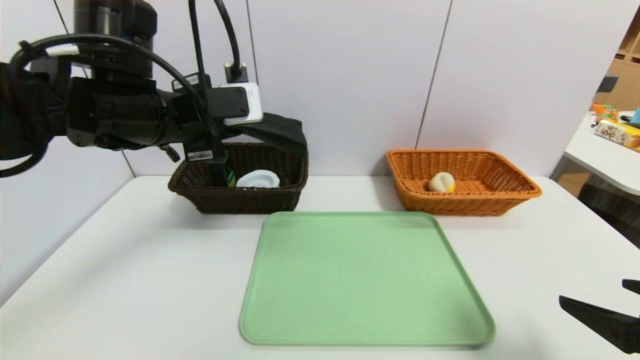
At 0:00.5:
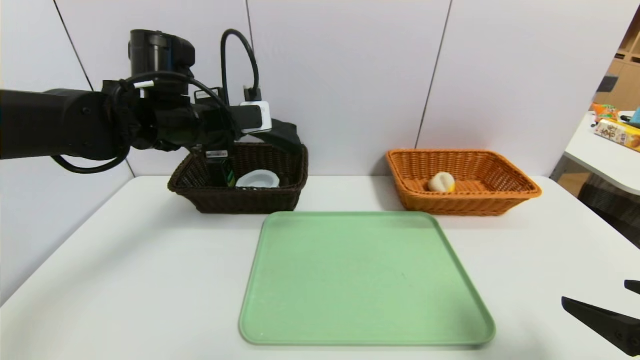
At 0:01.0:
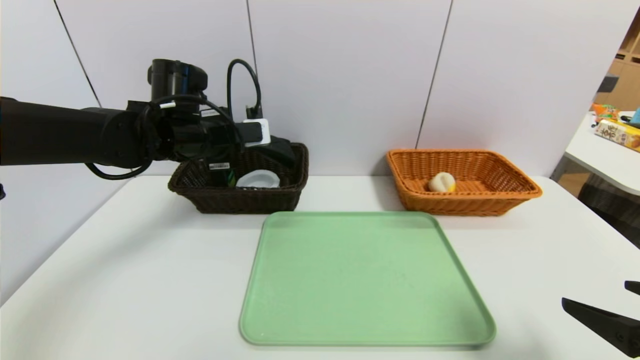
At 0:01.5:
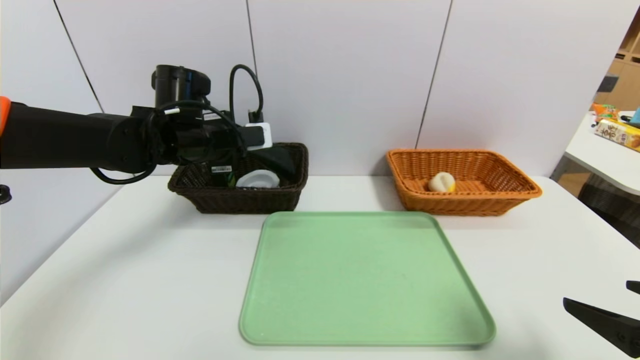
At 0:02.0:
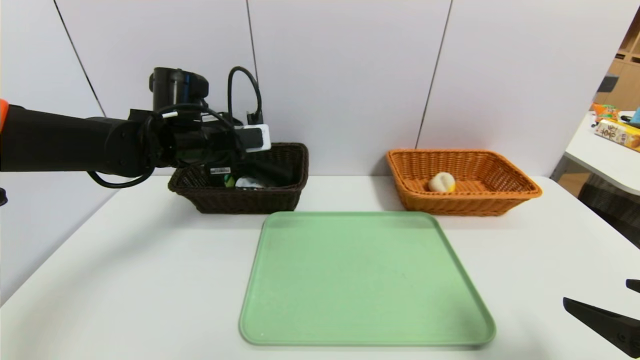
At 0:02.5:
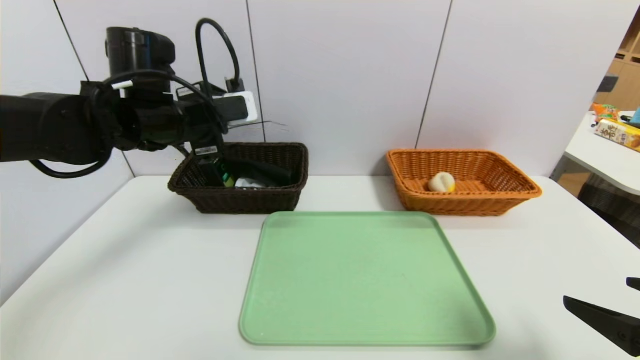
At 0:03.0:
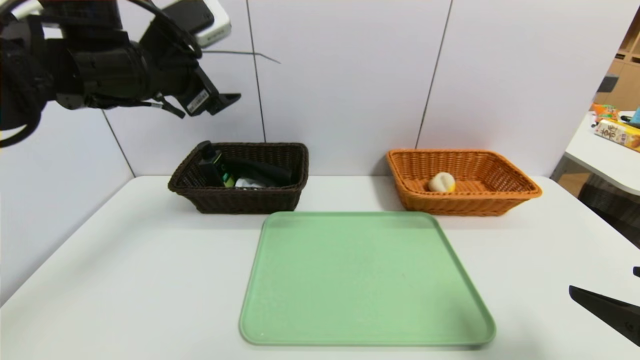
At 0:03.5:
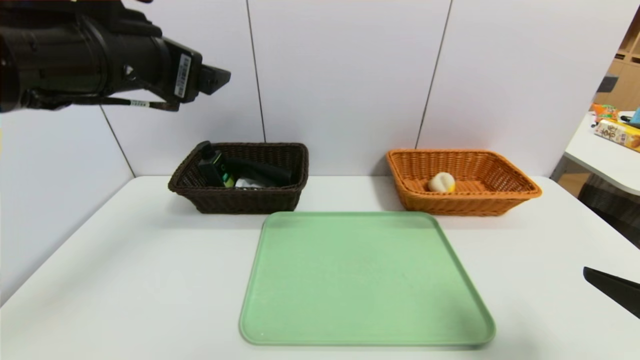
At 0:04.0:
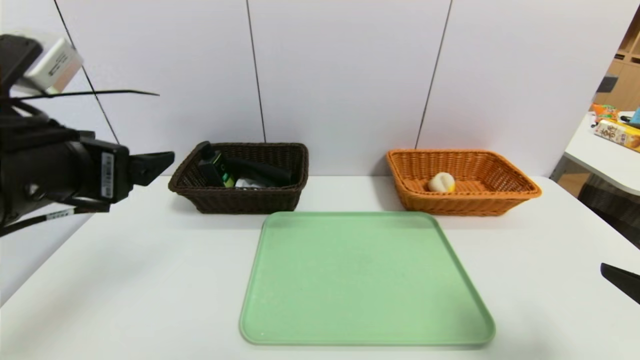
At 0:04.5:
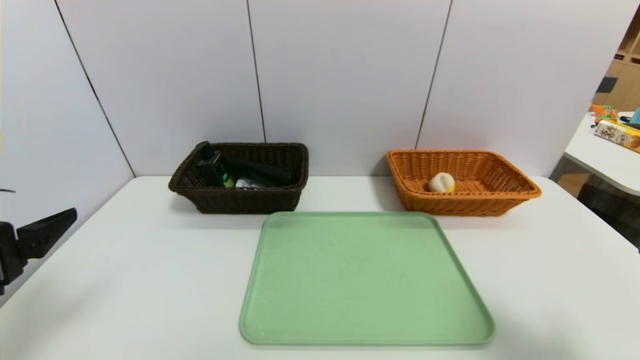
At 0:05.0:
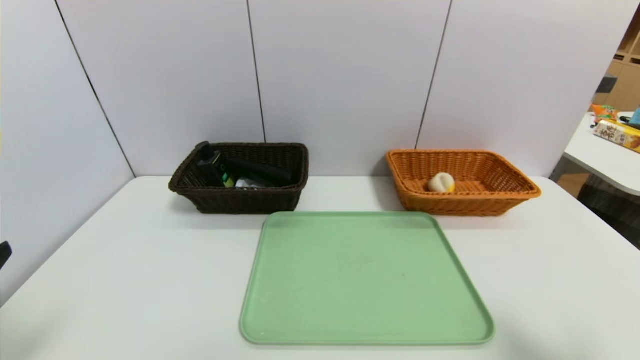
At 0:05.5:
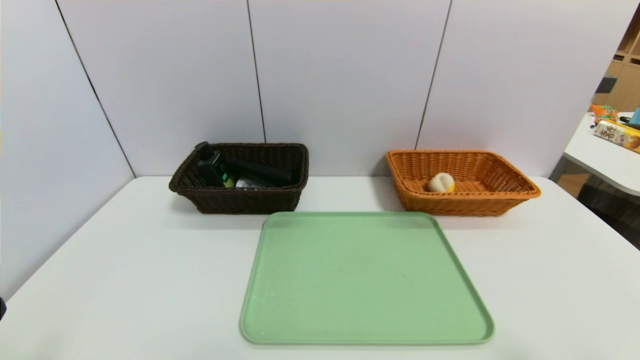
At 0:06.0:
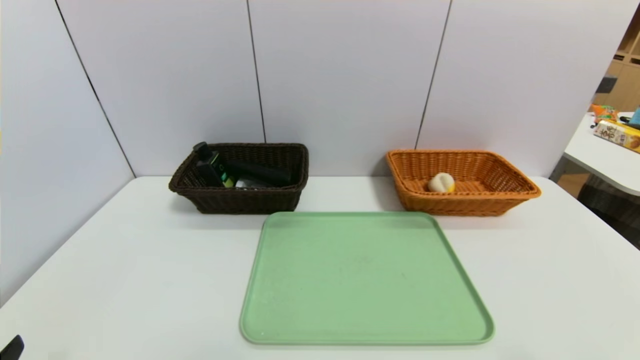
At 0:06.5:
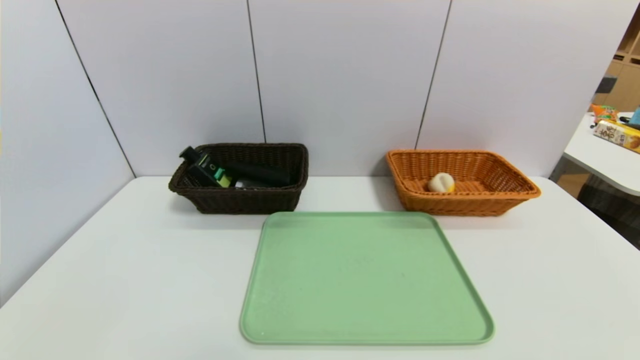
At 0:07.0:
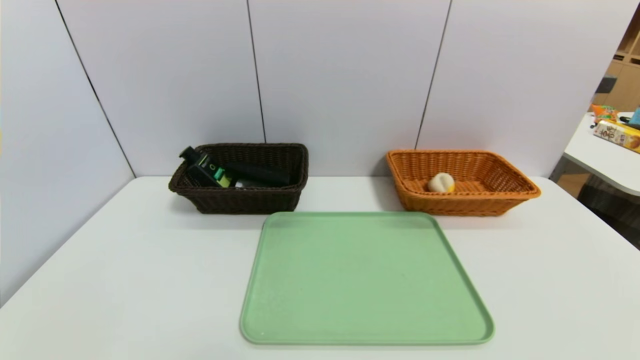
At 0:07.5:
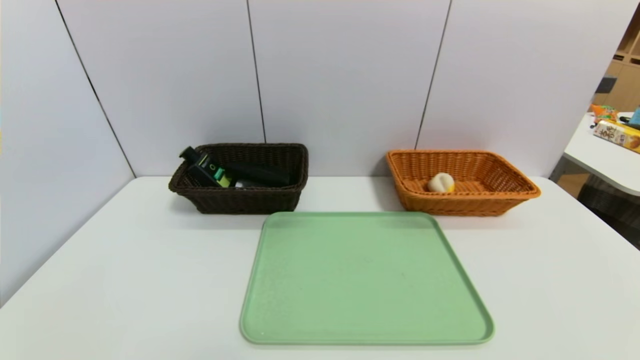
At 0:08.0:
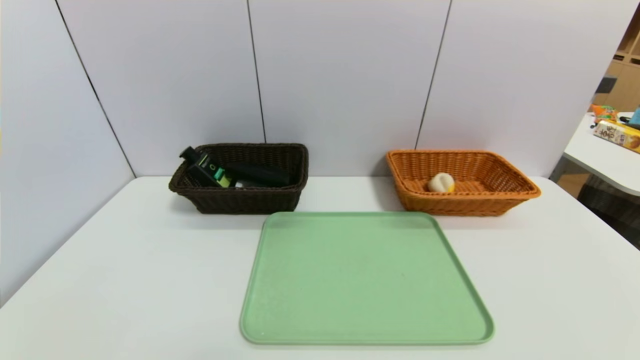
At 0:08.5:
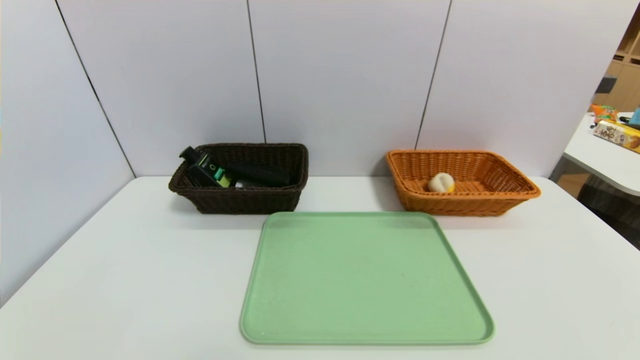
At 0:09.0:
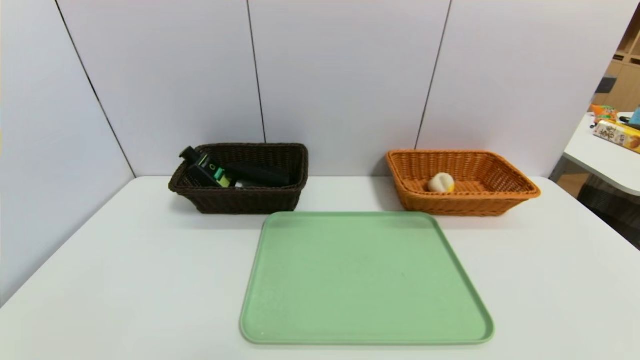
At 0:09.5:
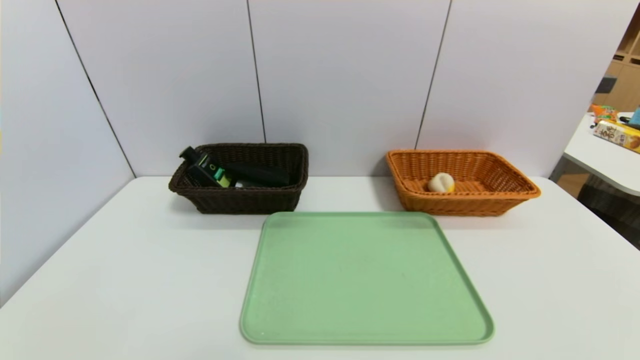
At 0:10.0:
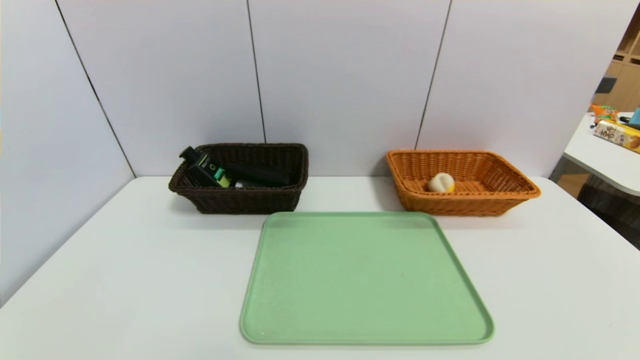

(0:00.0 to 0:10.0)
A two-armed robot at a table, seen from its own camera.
Task of the whole recording: place the food in the right basket with the right gripper, and place the non food items in the left basket with the left gripper.
Step, 0:00.0 - 0:02.0: Grasp the glasses case and put it in the left basket.
0:00.0 - 0:02.0: The left gripper is displaced forward and downward by about 10 cm, and opens up.
0:02.0 - 0:04.0: The left gripper travels backward by approximately 20 cm.
0:04.0 - 0:06.0: The right gripper shifts approximately 10 cm backward. The left gripper moves backward, downward and to the left, approximately 25 cm.

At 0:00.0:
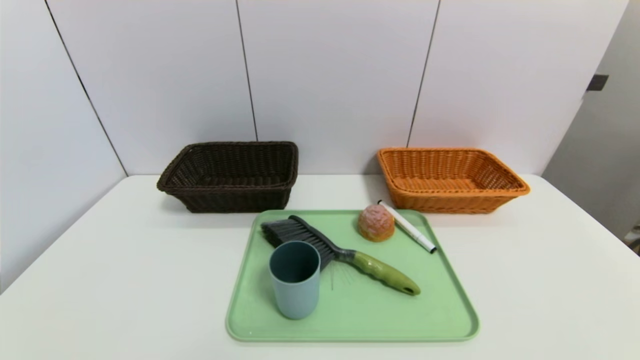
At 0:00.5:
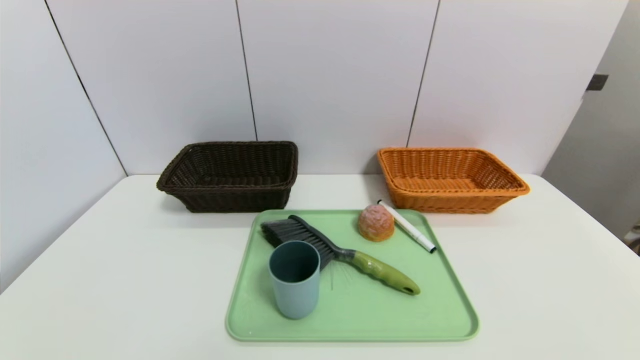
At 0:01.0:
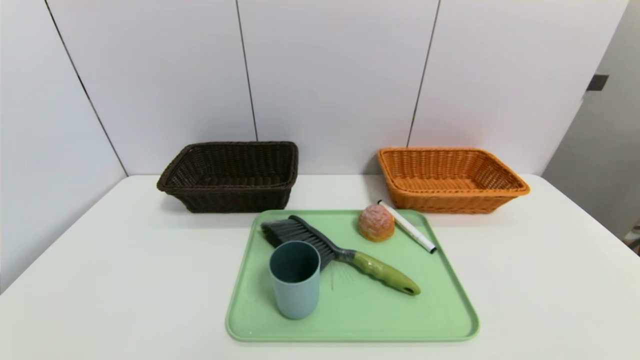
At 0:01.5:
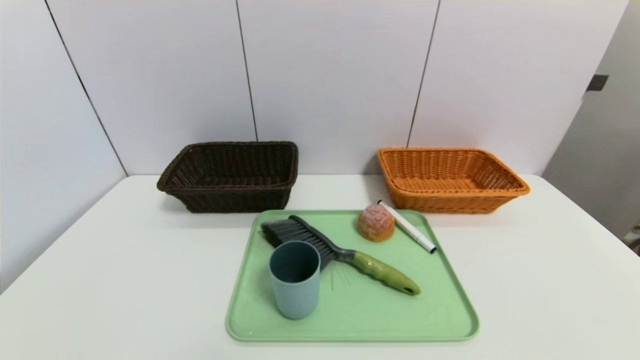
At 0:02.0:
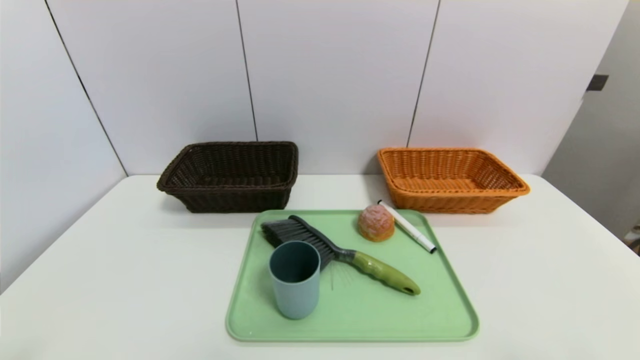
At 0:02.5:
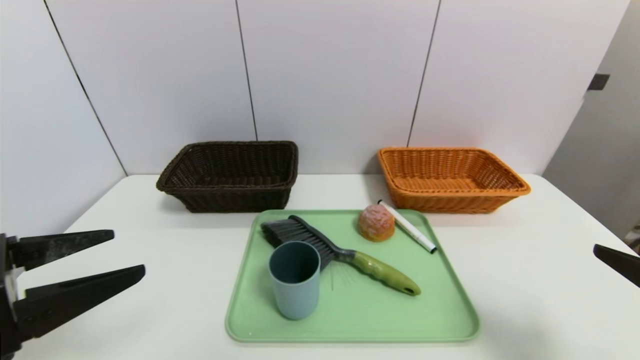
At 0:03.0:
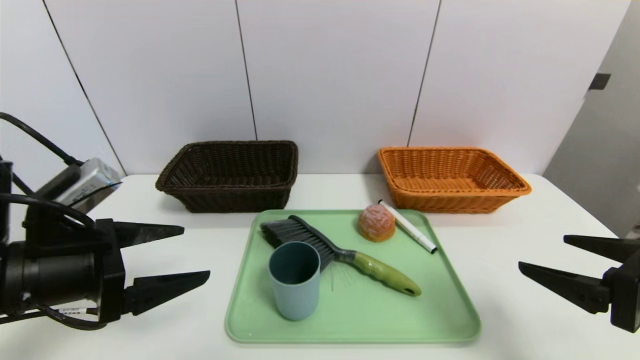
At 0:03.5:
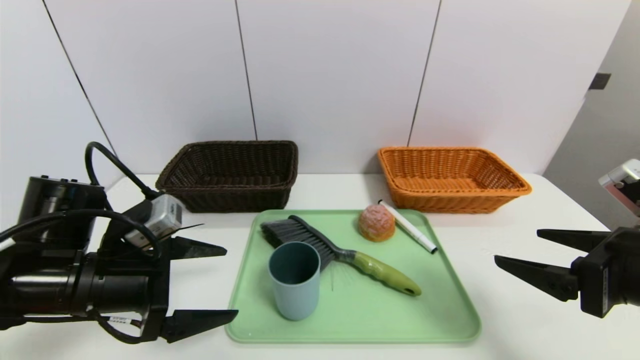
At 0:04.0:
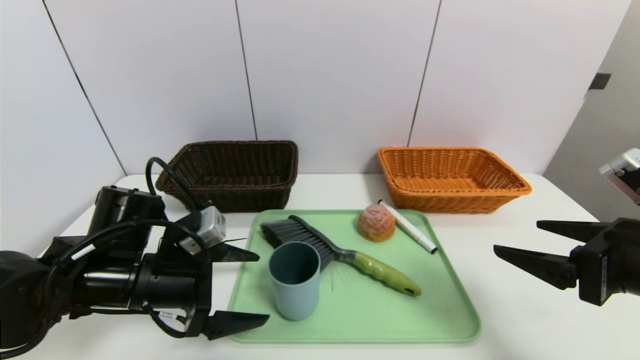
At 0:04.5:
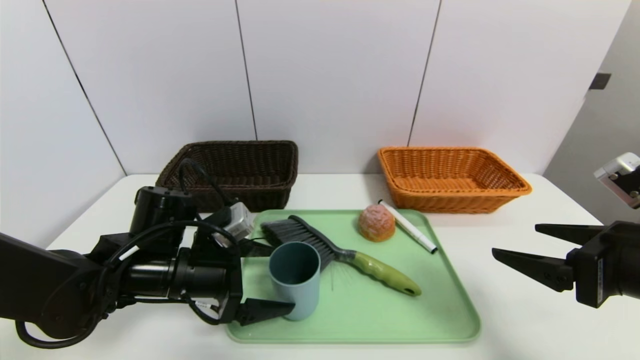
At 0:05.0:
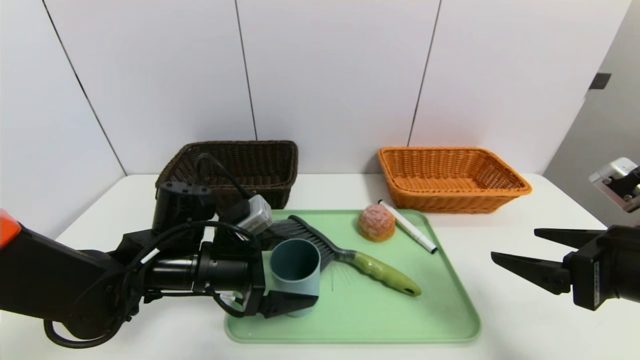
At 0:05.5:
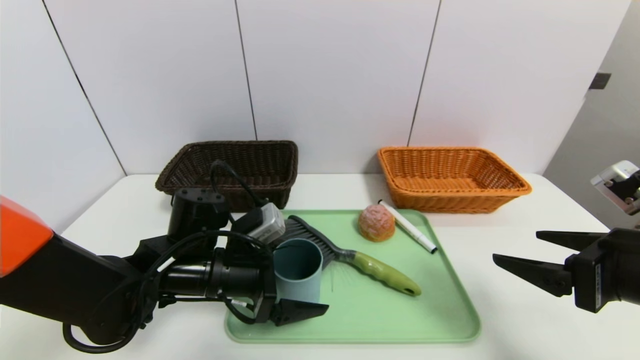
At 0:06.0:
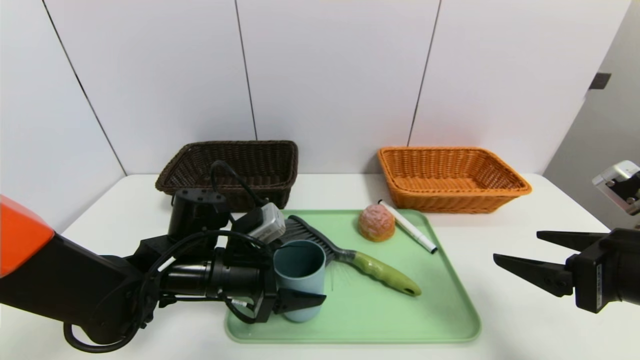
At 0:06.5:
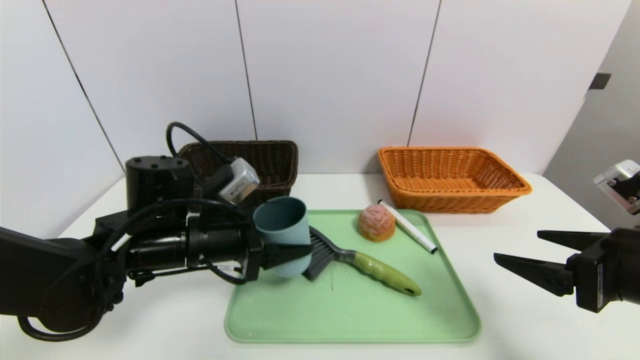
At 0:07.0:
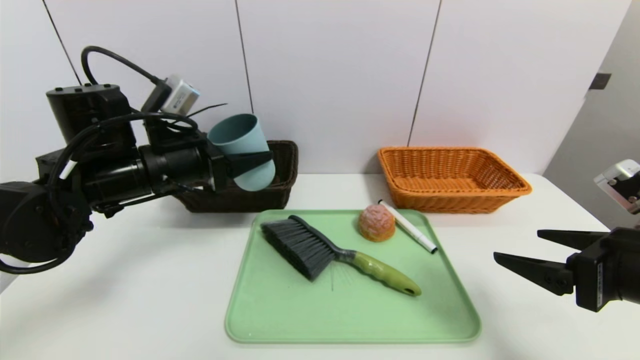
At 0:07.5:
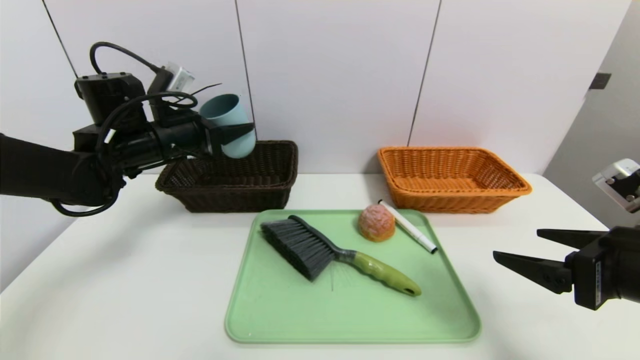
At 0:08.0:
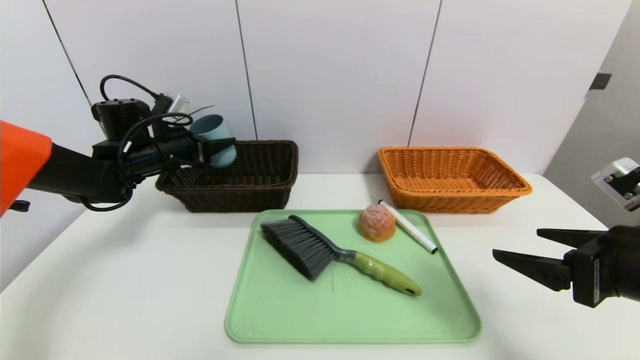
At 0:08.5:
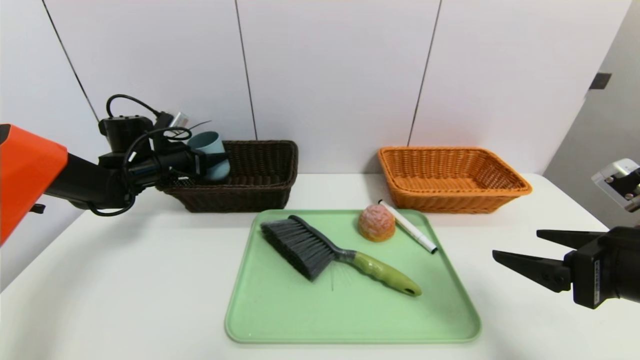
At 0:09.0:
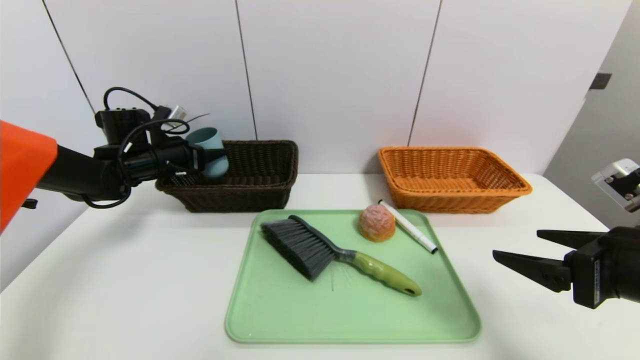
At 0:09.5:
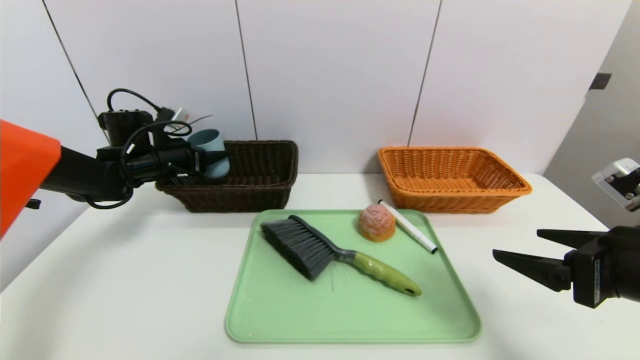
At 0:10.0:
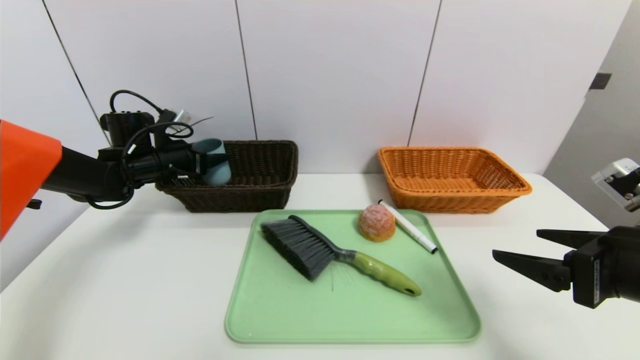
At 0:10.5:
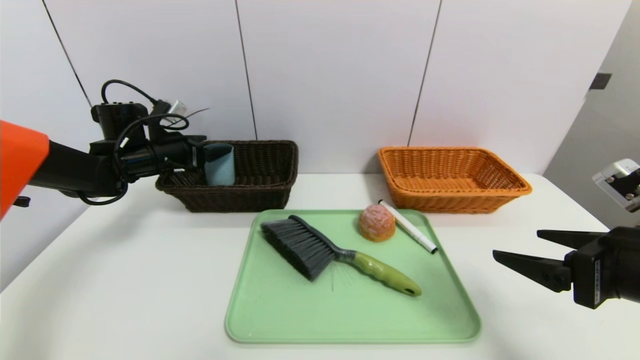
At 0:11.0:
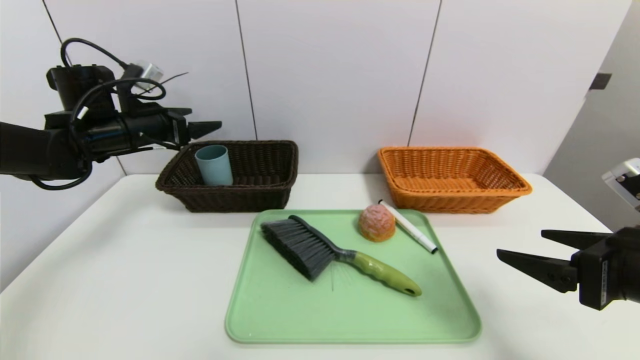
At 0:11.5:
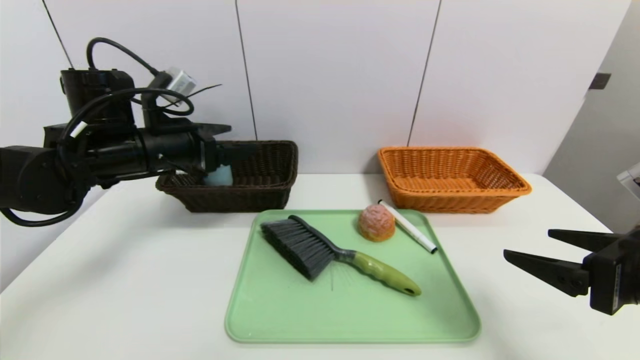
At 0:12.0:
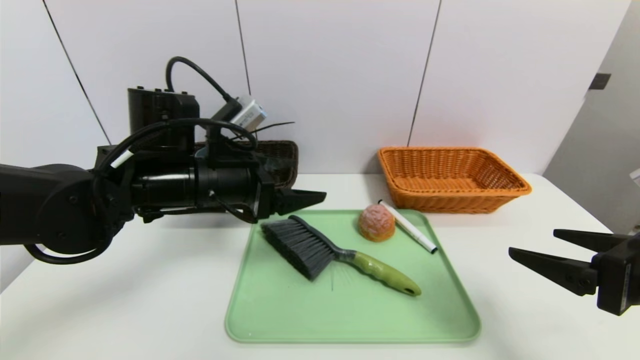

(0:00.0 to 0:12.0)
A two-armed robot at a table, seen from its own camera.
Task of the whole recording: place the food in the right basket with the right gripper, and place the non food items in the left basket with the left gripper.
Step, 0:00.0 - 0:10.5: Grasp the blue cup and put it in the left basket.
0:02.0 - 0:04.0: The right gripper shifts roughly 15 cm forward. The left gripper travels forward by approximately 25 cm.
0:04.0 - 0:06.0: The left gripper goes some 5 cm to the right, and closes its fingers.
0:06.0 - 0:08.0: The left gripper is displaced forward, to the left and upward by some 25 cm.
0:08.0 - 0:10.0: The grippers move only a little.
0:10.0 - 0:12.0: The left gripper is displaced to the right and backward by some 25 cm.
